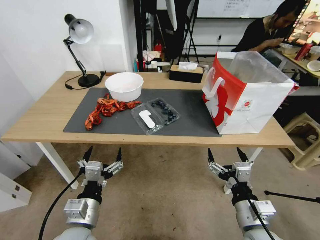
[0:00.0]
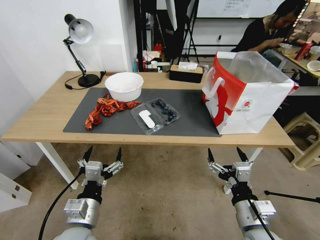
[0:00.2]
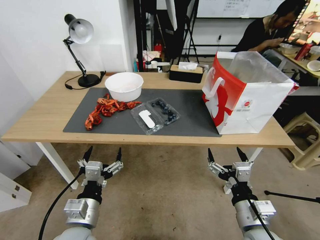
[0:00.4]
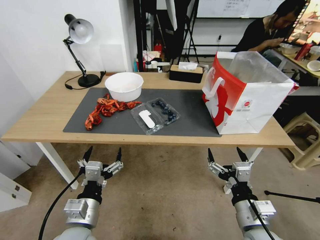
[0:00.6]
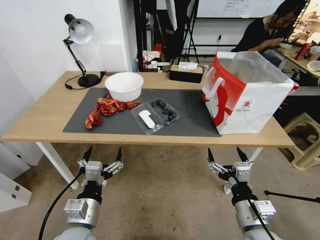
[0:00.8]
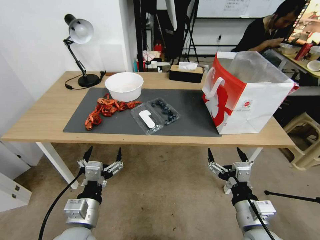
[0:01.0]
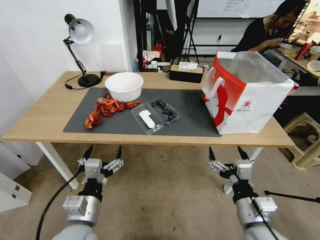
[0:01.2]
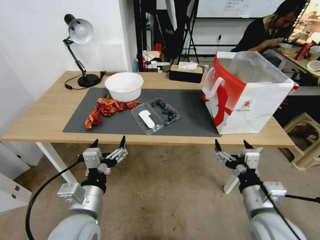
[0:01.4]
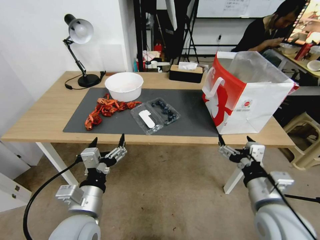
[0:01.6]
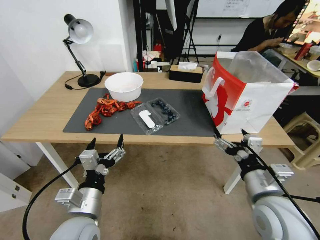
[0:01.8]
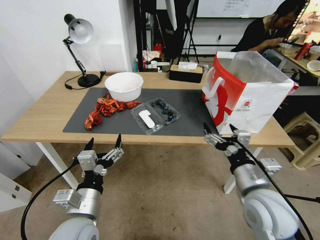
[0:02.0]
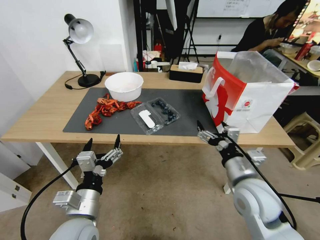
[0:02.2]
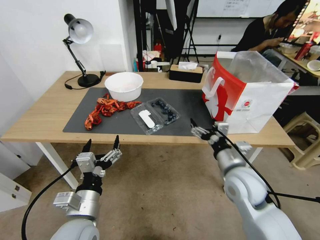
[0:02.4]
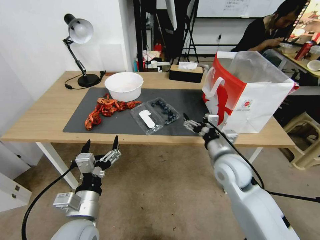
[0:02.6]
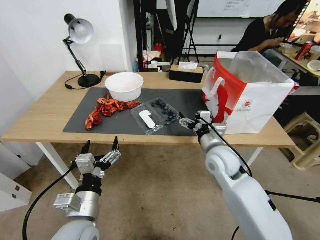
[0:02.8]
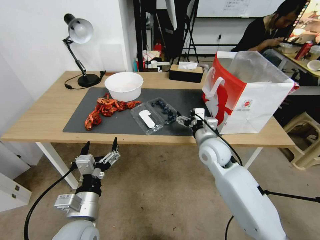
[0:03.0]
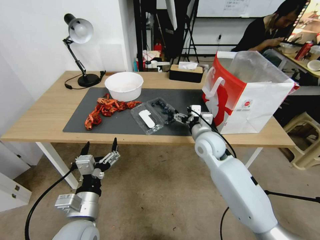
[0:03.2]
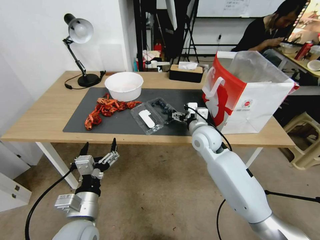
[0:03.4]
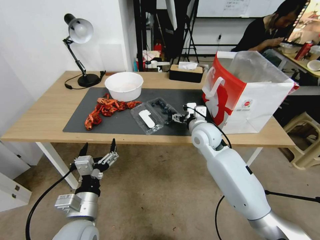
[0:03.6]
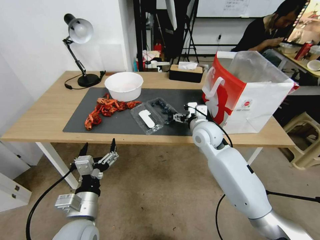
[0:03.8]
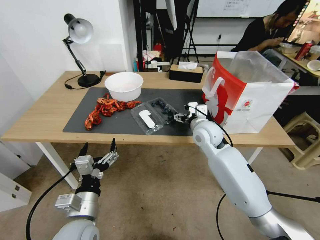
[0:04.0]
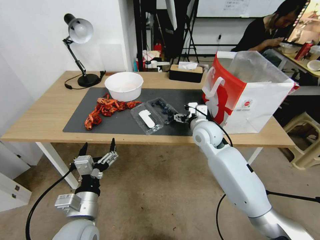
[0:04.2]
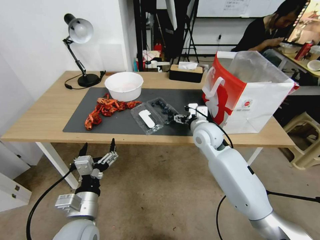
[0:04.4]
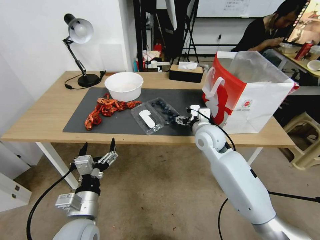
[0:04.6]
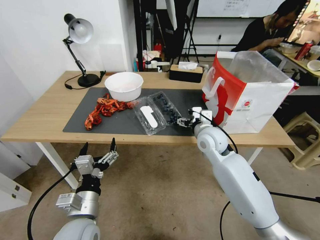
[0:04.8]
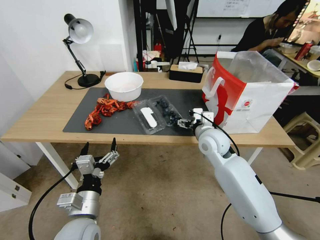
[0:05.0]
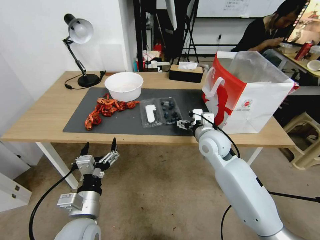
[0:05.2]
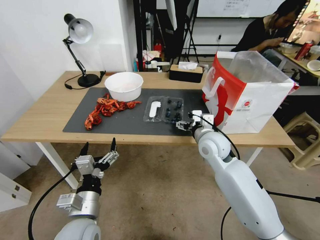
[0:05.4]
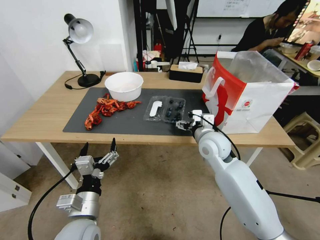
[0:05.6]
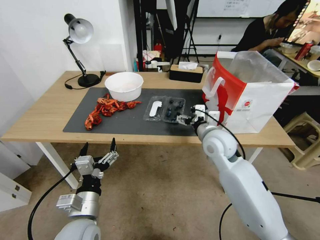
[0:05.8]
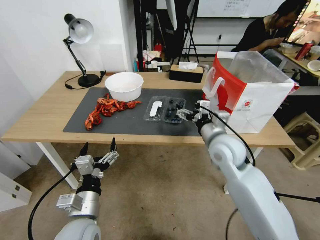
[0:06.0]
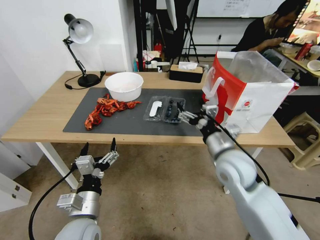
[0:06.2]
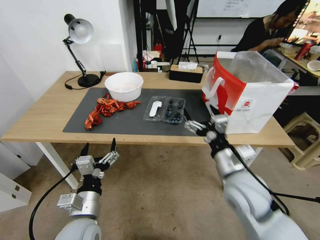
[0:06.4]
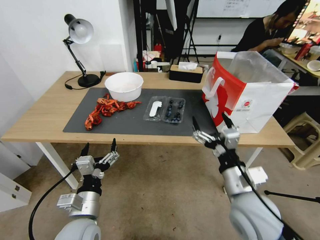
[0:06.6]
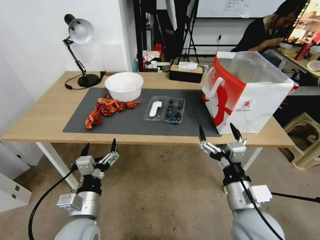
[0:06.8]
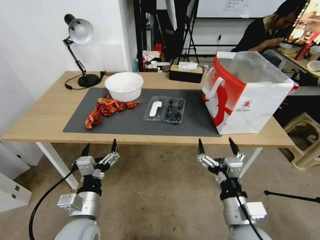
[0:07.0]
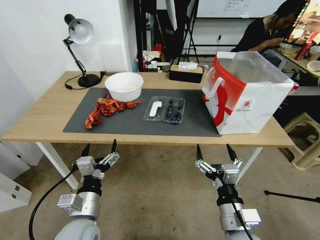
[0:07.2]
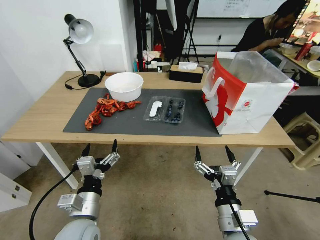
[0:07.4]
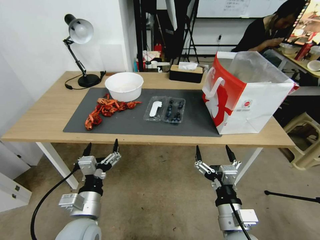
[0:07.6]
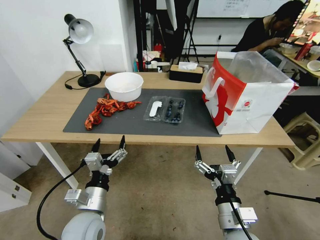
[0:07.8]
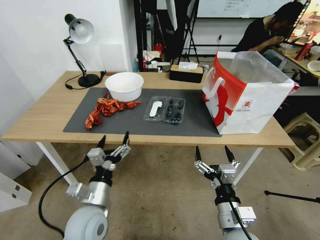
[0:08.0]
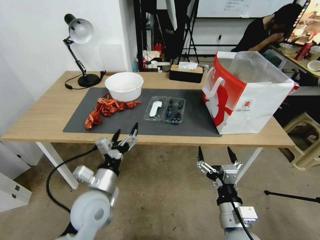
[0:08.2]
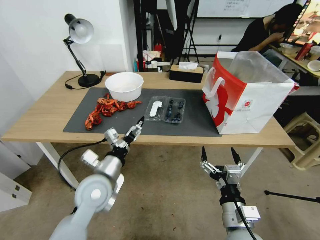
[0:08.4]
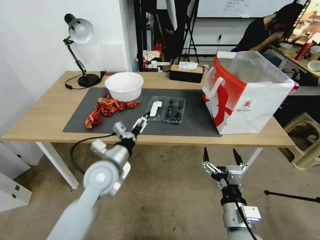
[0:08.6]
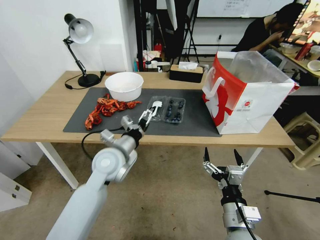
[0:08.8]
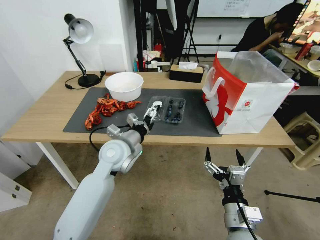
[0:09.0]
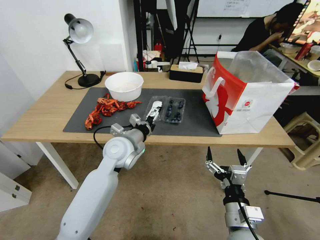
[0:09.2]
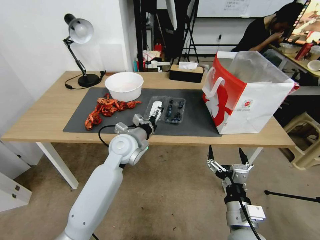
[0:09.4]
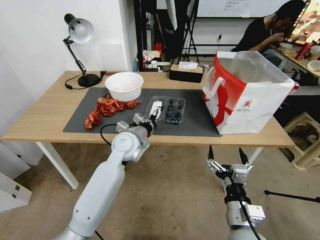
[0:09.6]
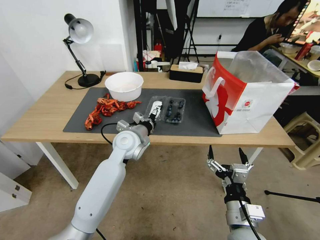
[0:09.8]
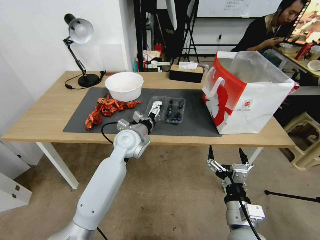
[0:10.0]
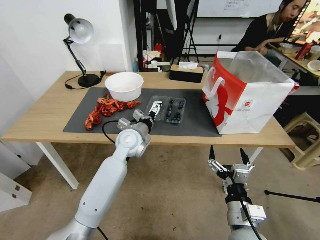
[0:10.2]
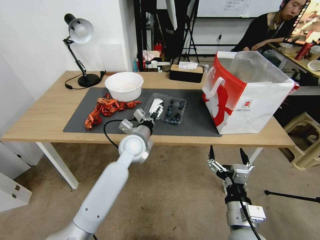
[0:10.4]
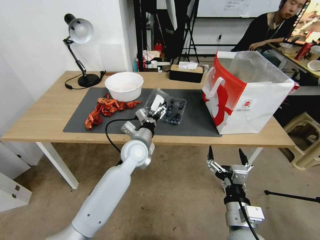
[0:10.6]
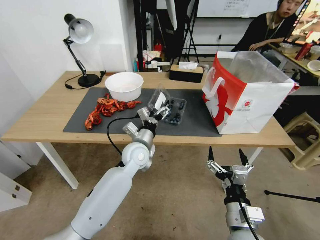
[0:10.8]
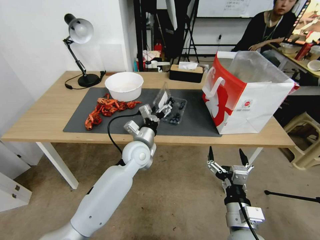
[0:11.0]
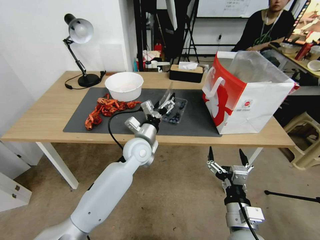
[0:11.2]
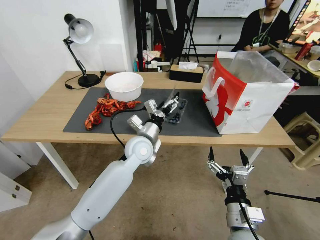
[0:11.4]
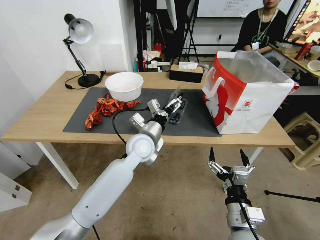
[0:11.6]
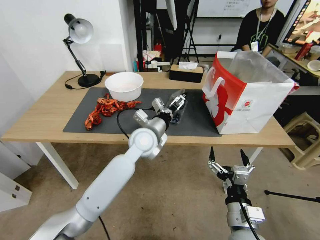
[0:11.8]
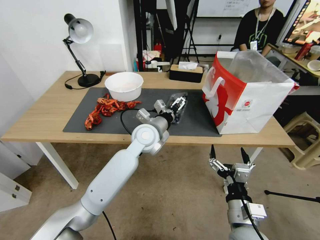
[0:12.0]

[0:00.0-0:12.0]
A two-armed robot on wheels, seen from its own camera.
Task of the whole recording: Close the takeout container lid, then place the container into the takeout bag.
1.6 to 3.0 s: The right gripper shifts some 20 cm forward.
3.0 to 4.4 s: The right gripper is displaced forward by approximately 5 cm.
4.4 to 6.0 s: The right gripper goes some 10 cm backward.
6.0 to 7.6 s: The right gripper heads backward and downward, covering some 25 cm.
7.6 to 9.0 s: The left gripper goes approximately 20 cm forward.
9.0 to 10.4 s: The left gripper moves forward, some 5 cm.
10.4 to 12.0 s: The left gripper ends up approximately 5 cm from where it was.

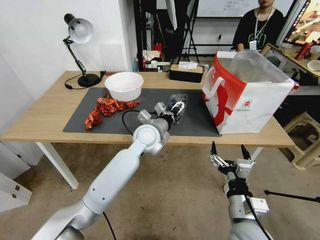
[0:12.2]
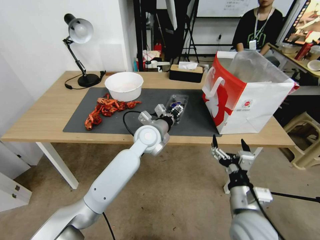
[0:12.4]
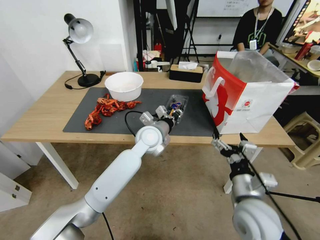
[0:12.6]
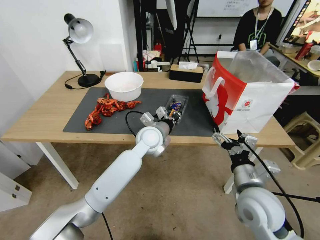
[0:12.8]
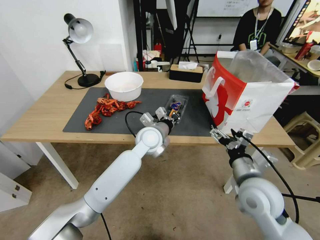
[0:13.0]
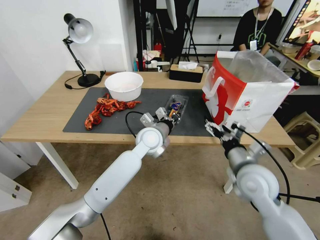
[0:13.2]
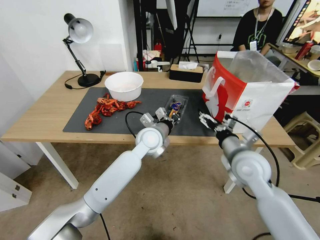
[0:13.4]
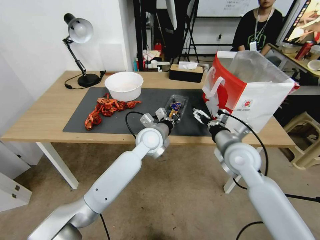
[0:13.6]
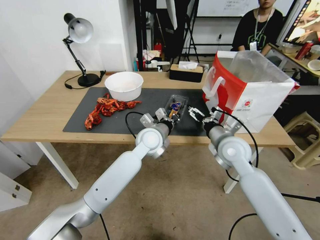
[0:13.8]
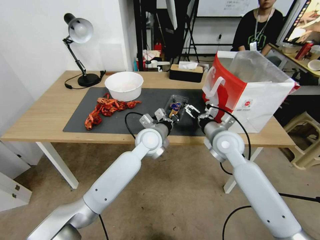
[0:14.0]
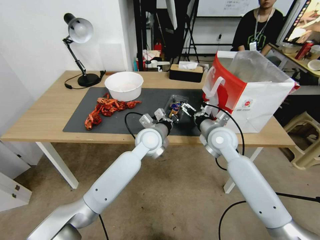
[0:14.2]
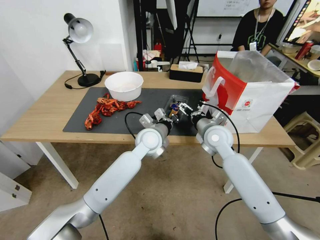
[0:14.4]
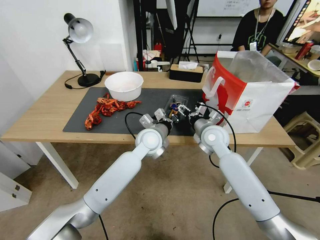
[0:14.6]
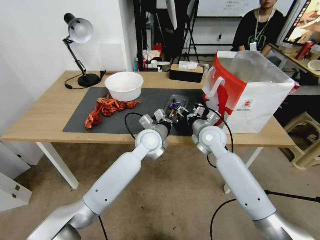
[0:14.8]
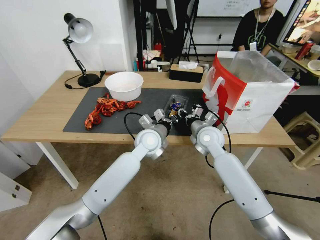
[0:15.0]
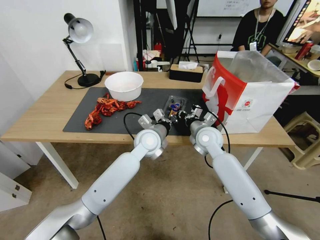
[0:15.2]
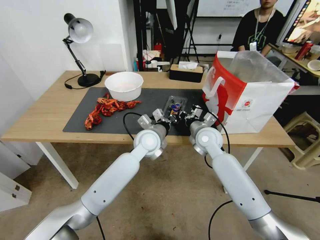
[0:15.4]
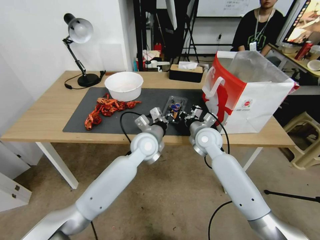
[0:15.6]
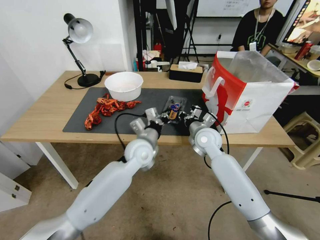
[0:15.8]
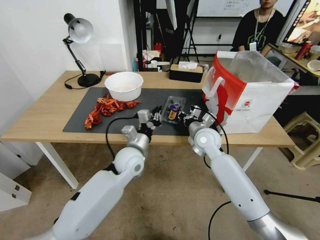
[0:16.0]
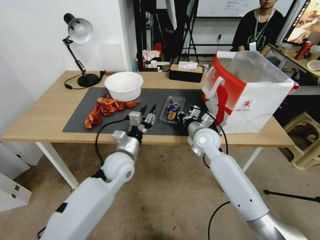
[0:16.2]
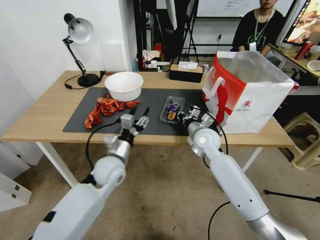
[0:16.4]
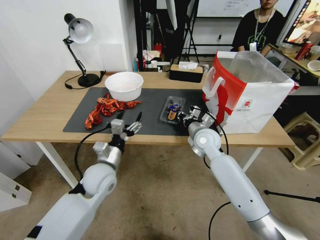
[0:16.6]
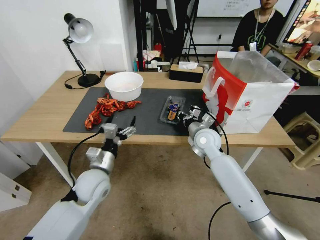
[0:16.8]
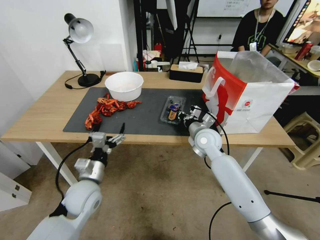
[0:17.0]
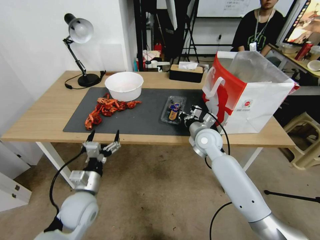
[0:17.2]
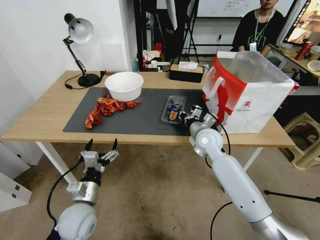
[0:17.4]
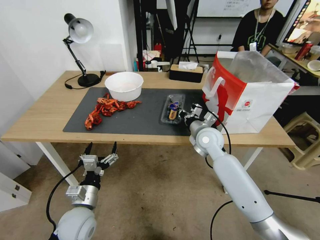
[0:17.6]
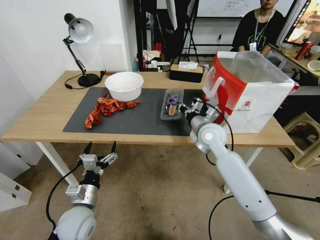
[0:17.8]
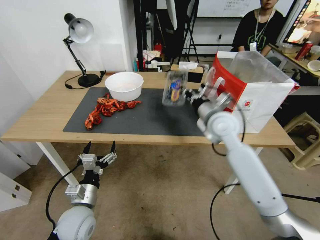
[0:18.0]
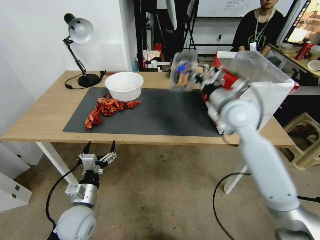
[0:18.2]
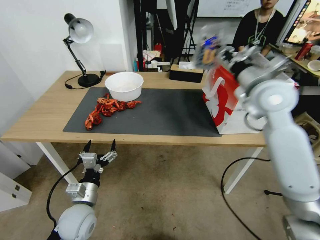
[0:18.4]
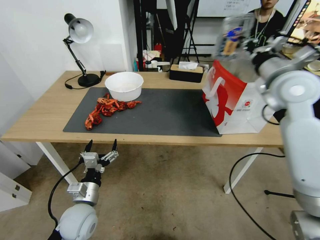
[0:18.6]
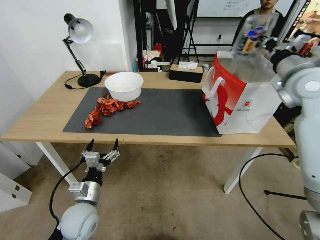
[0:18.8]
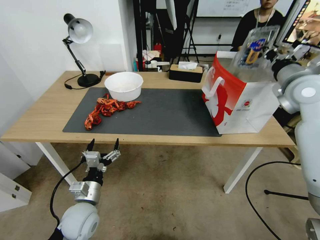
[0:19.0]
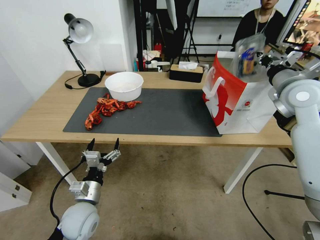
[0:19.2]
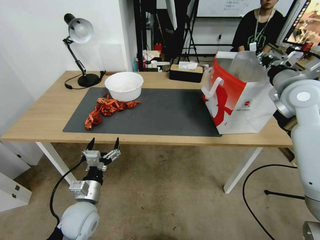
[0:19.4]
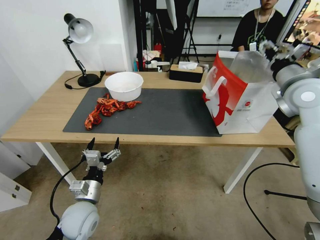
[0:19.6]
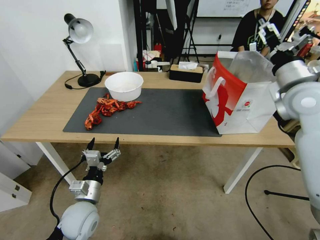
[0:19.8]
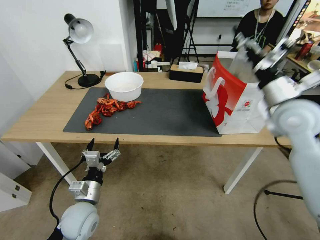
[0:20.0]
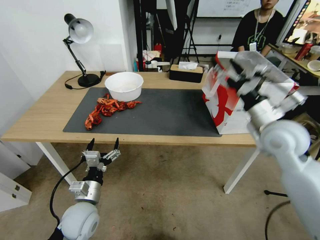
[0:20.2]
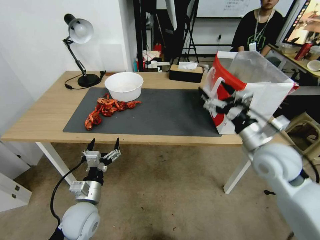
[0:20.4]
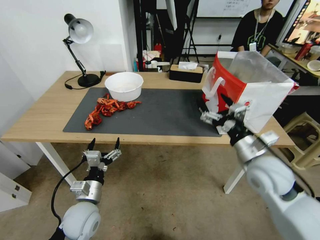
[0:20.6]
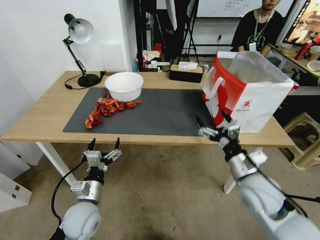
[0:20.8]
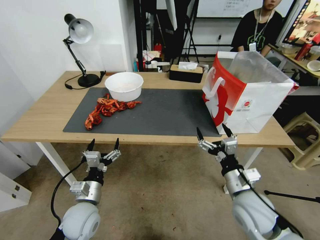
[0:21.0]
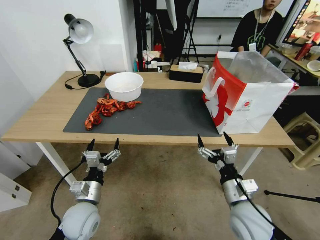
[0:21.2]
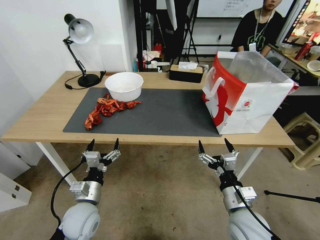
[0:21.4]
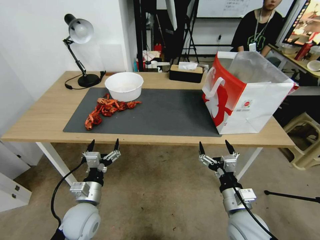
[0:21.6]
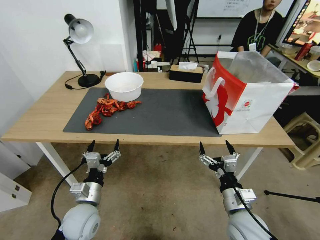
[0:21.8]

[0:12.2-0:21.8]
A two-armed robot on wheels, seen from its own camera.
Task of the whole recording: Close the takeout container lid, then place the container into the takeout bag.
12.2 to 13.8 s: The right gripper travels forward by roughly 20 cm, while the left gripper closes up.
13.8 to 15.4 s: The right gripper moves forward and to the left, about 10 cm, and closes.
15.4 to 17.0 s: The left gripper is displaced to the left and backward by about 25 cm, and opens its fingers.
17.0 to 18.6 s: The right gripper moves upward and to the right, about 30 cm. Meanwhile the left gripper is displaced backward by about 5 cm.
18.6 to 20.2 s: The right gripper moves downward and backward, some 15 cm, and opens its fingers.
20.2 to 21.8 s: The right gripper shifts some 25 cm downward and backward.

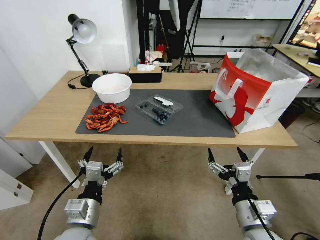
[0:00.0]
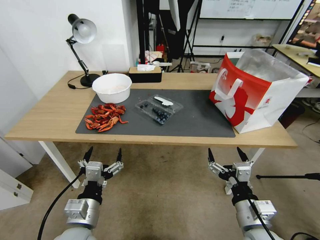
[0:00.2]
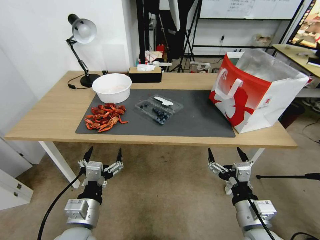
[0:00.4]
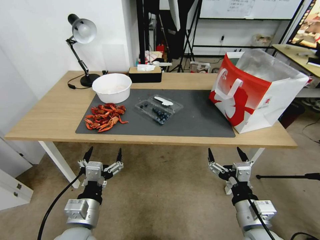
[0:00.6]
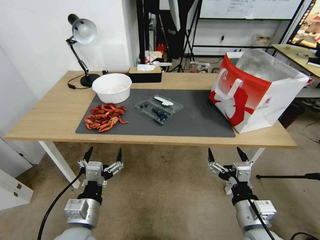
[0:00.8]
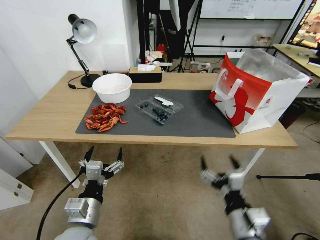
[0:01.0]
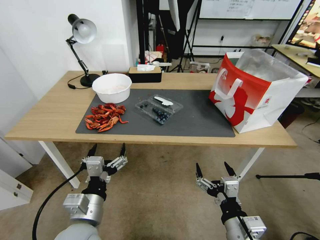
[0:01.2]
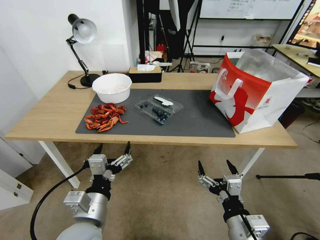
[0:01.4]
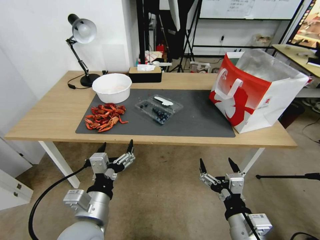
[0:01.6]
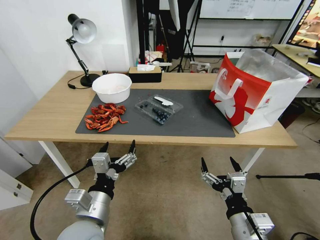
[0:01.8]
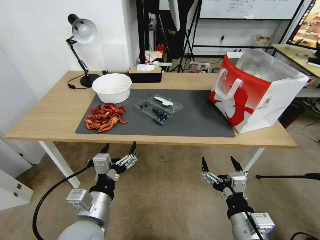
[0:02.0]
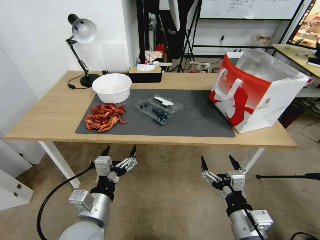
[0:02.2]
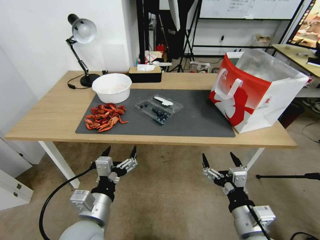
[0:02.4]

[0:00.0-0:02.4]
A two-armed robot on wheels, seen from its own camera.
Task of the whole recording: Close the takeout container lid, then place the container into the takeout bag.
1.2 to 2.4 s: The grippers move only a little.
